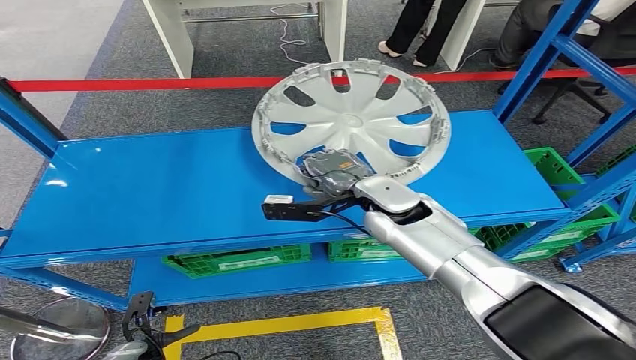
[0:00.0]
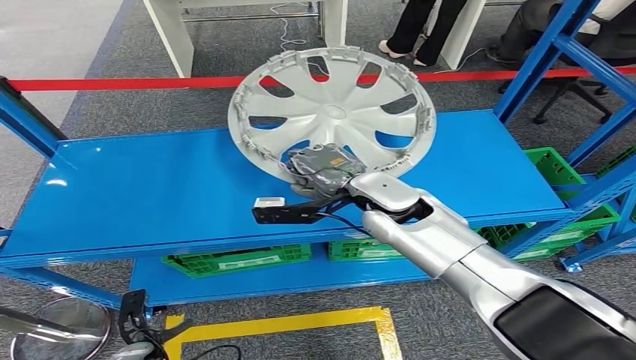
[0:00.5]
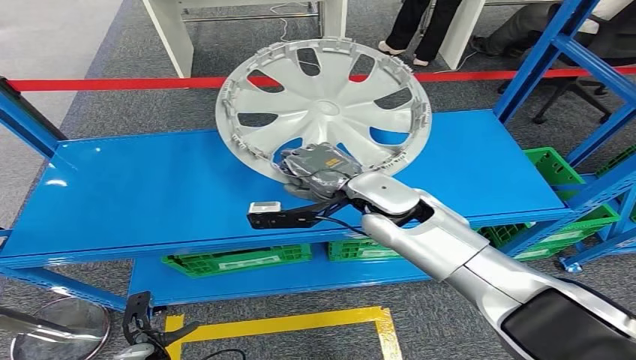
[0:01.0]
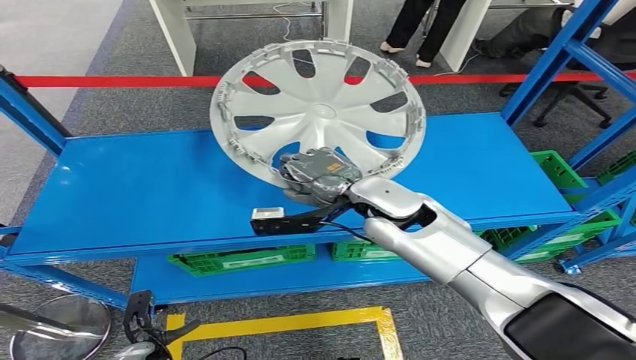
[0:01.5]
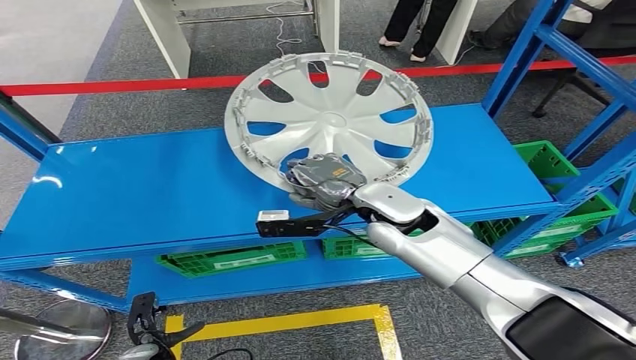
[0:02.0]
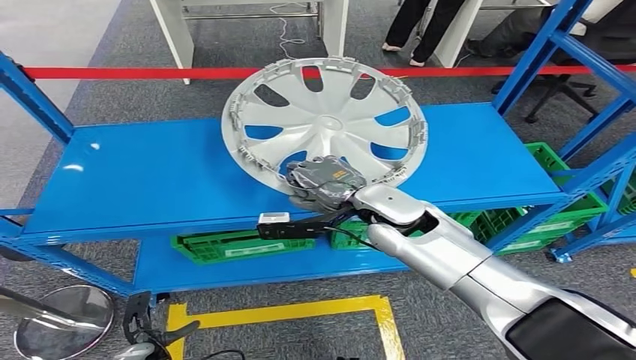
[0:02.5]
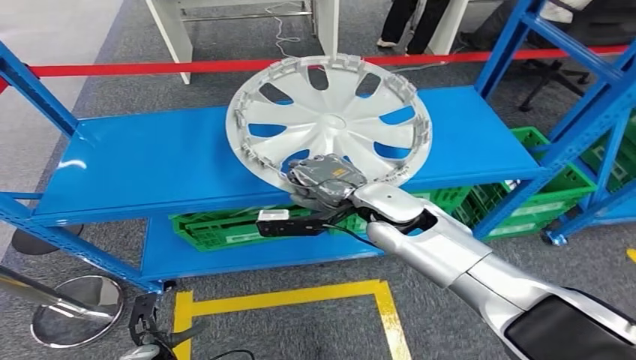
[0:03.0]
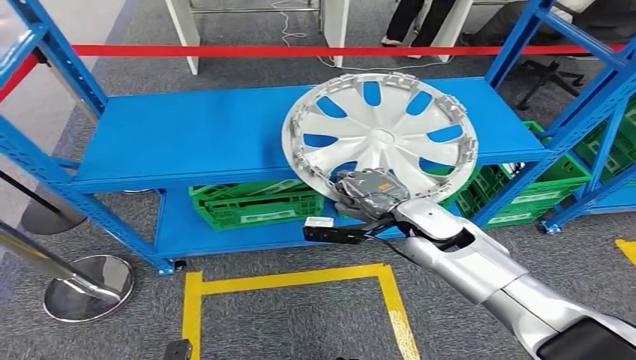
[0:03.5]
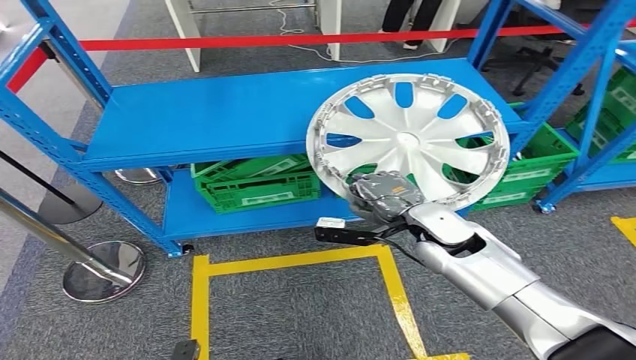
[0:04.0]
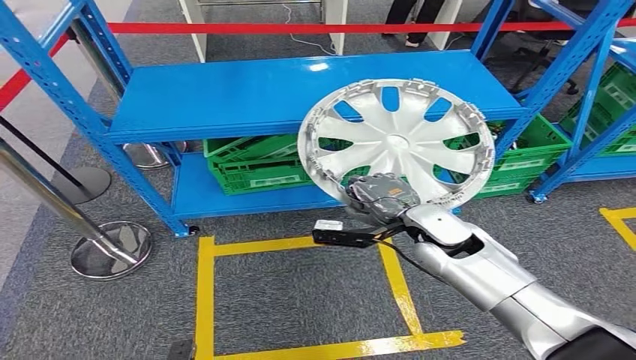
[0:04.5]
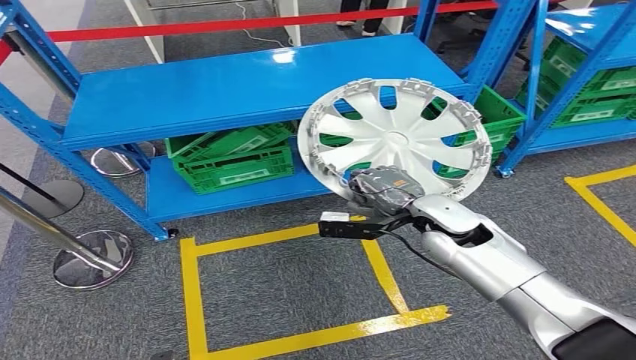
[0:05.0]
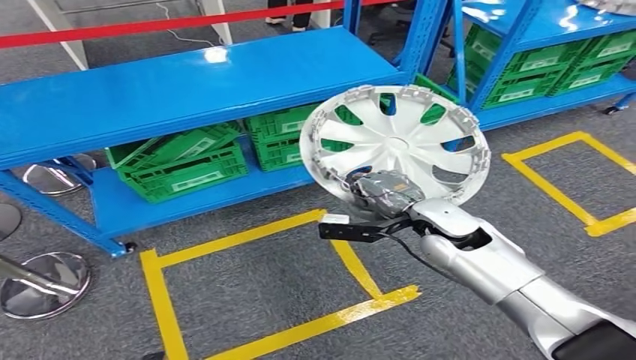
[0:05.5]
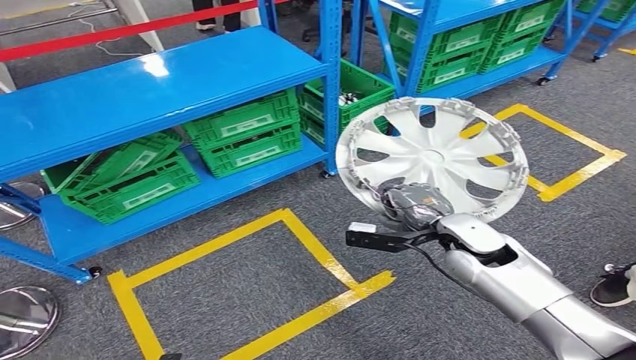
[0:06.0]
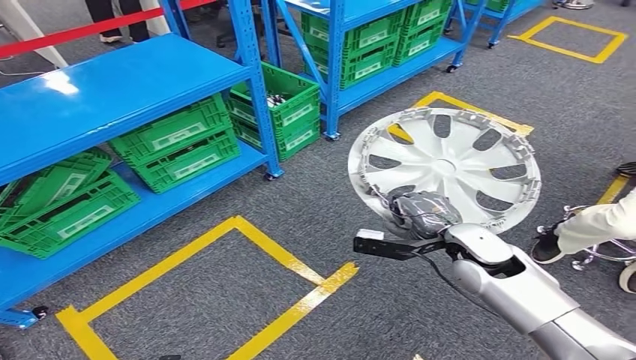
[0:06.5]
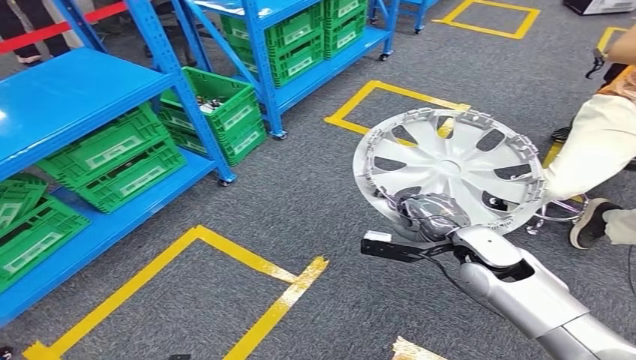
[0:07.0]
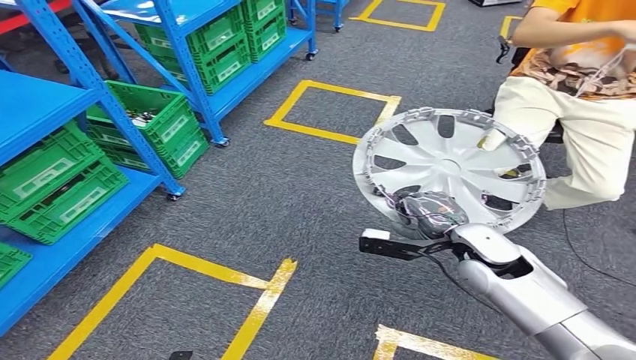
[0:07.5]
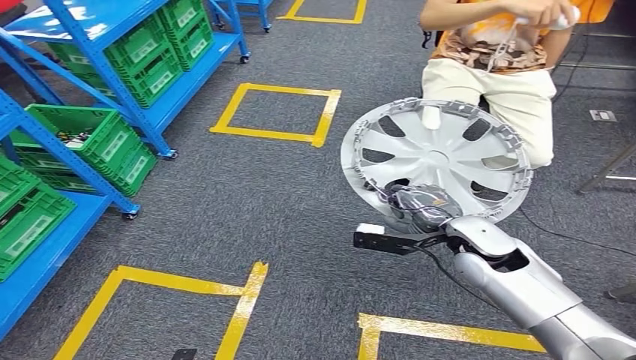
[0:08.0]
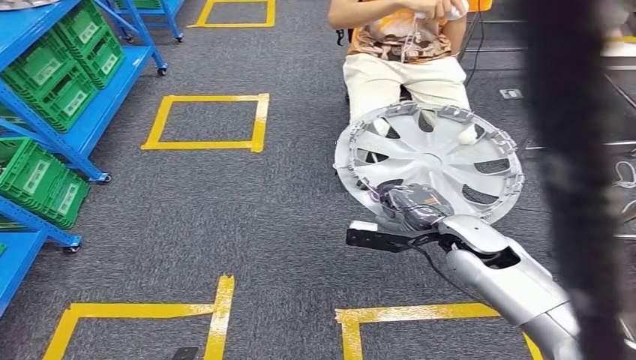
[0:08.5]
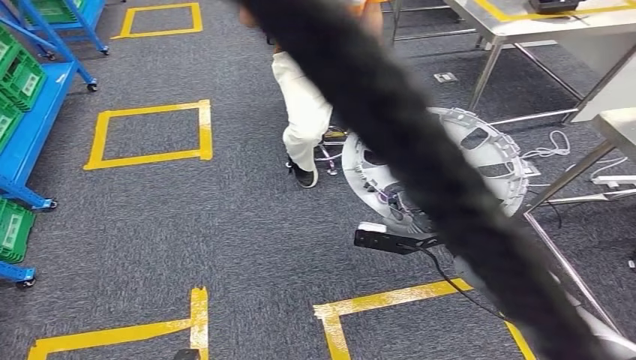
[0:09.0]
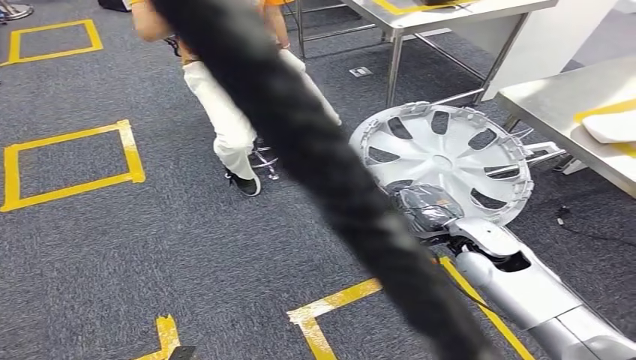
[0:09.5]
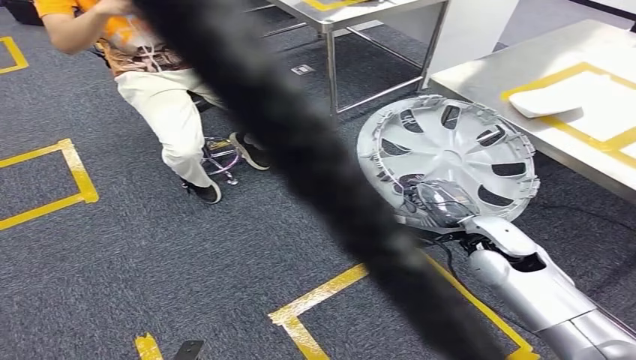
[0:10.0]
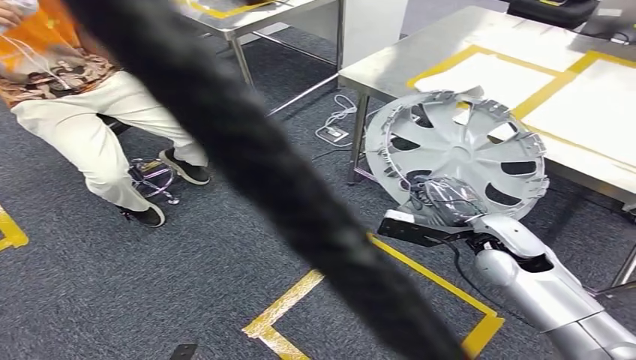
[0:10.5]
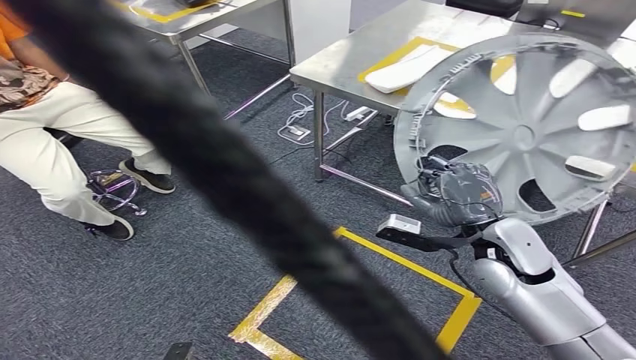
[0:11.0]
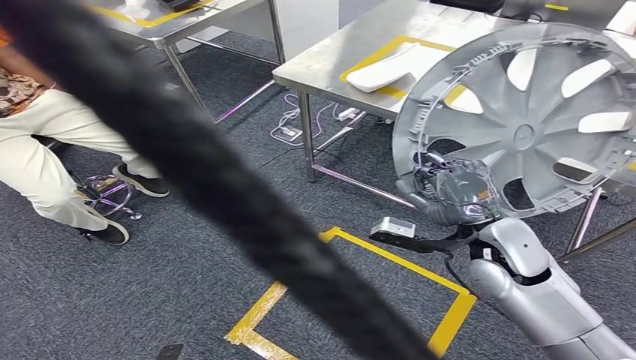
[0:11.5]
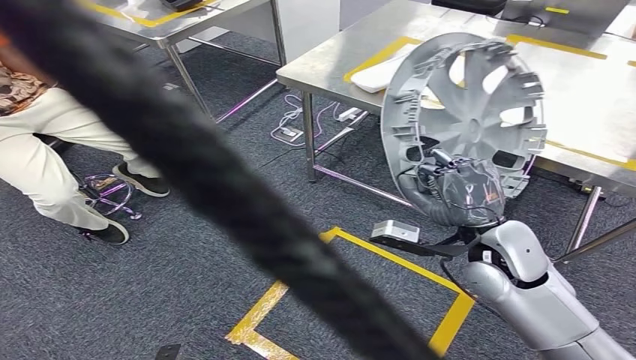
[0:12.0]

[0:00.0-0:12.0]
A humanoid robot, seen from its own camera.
Step, 0:00.0 to 0:10.5: Move the small parts to the workbench.

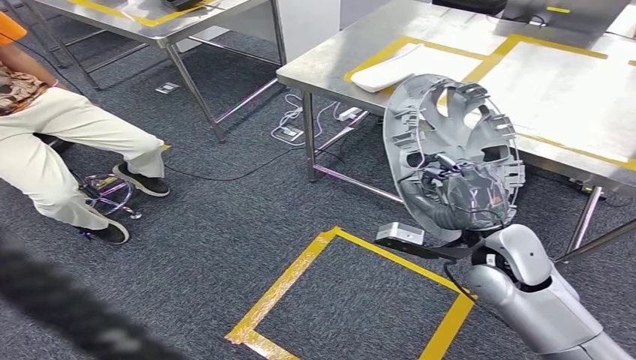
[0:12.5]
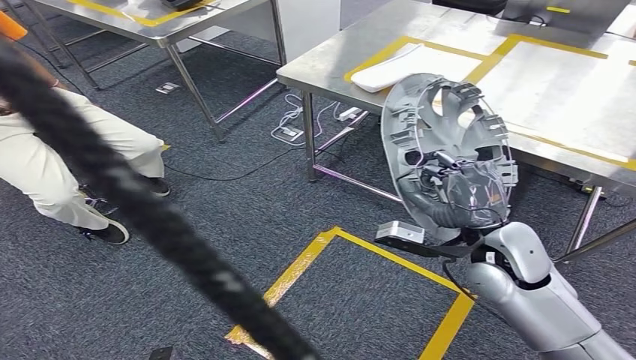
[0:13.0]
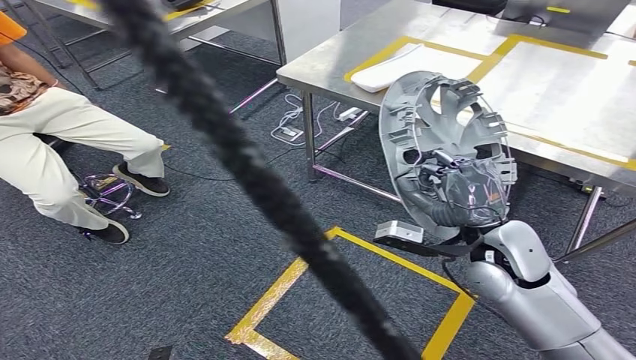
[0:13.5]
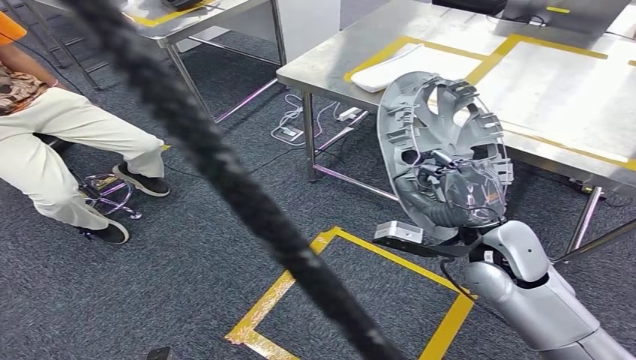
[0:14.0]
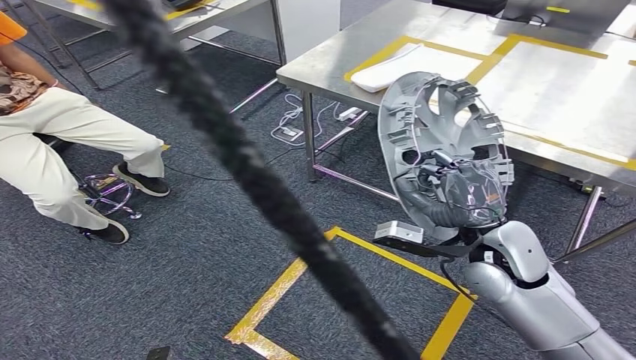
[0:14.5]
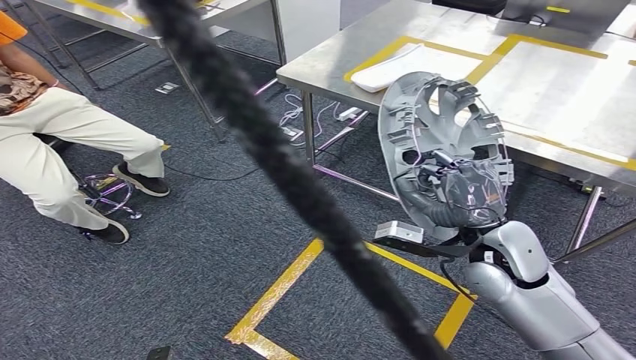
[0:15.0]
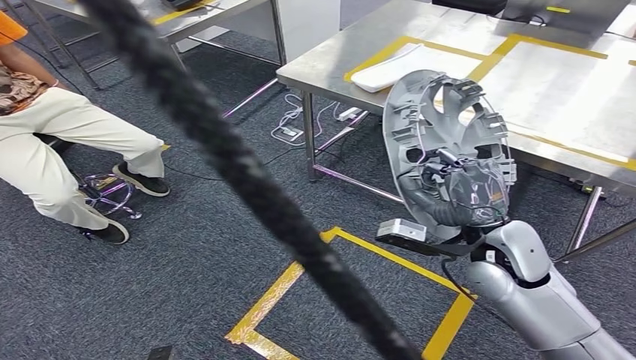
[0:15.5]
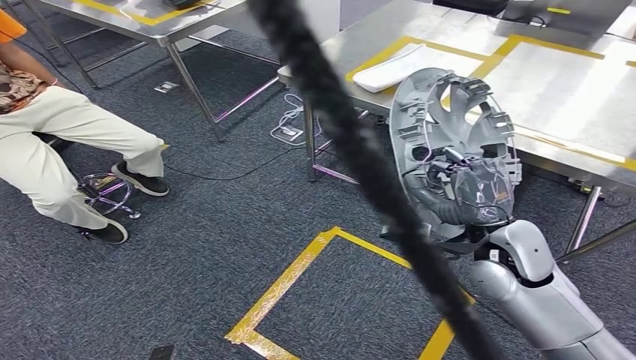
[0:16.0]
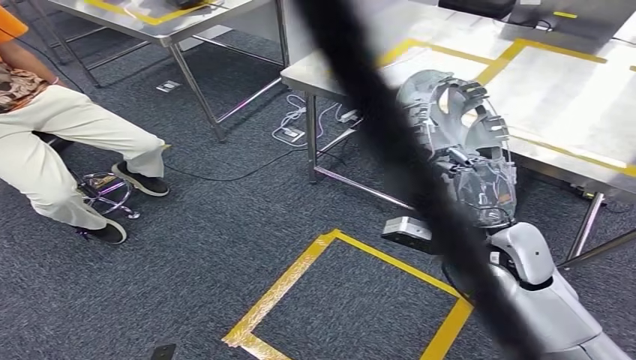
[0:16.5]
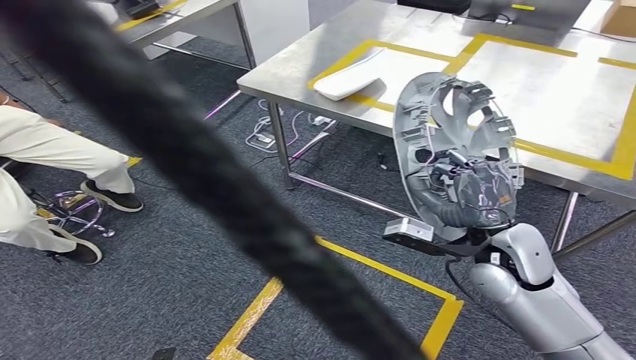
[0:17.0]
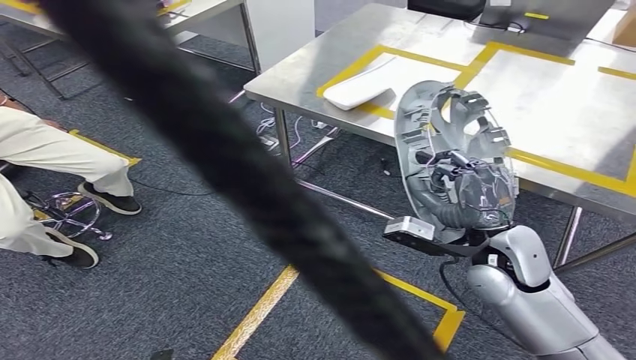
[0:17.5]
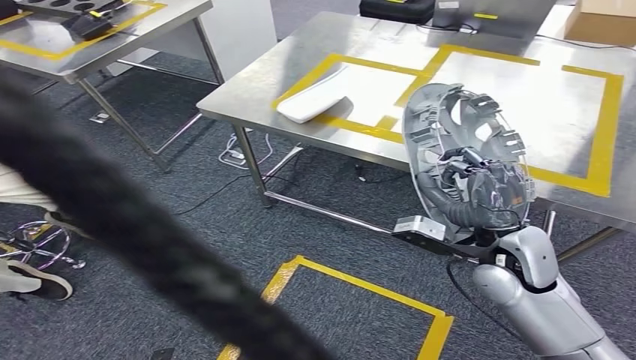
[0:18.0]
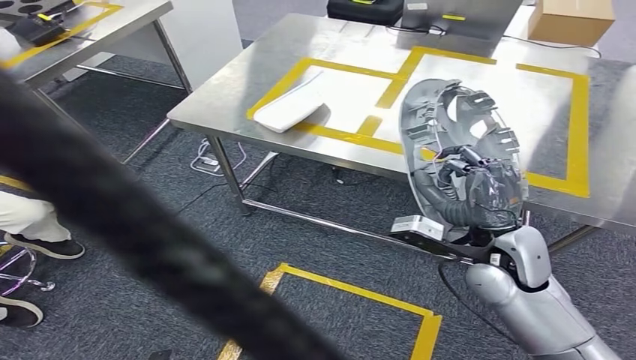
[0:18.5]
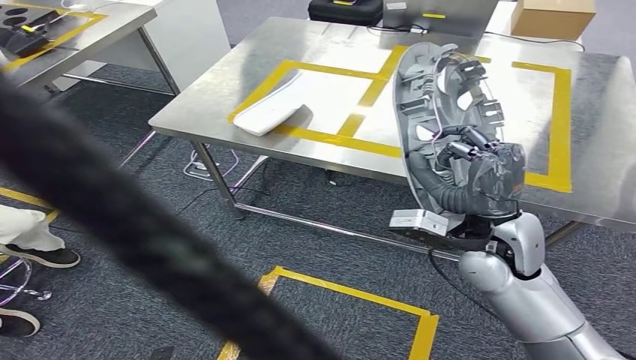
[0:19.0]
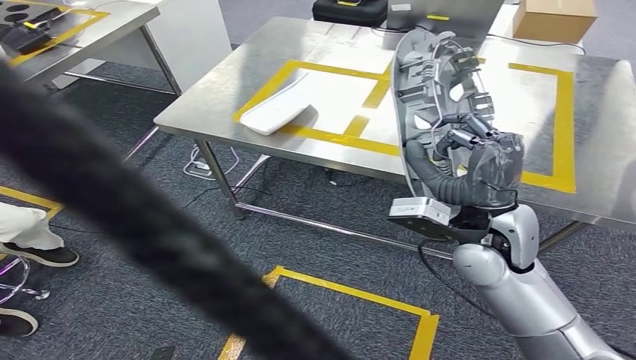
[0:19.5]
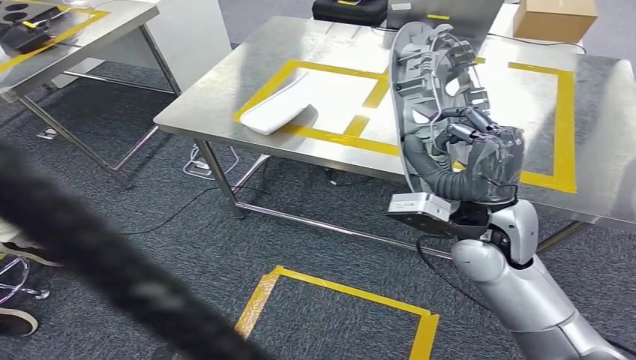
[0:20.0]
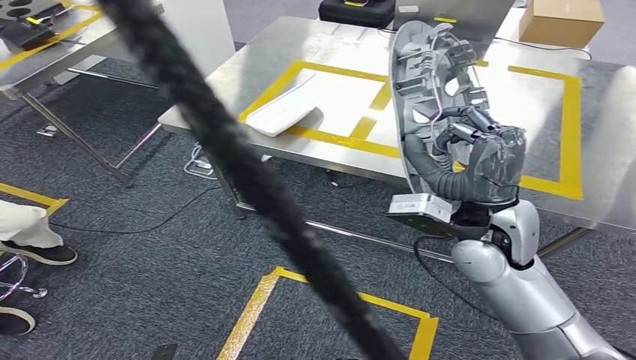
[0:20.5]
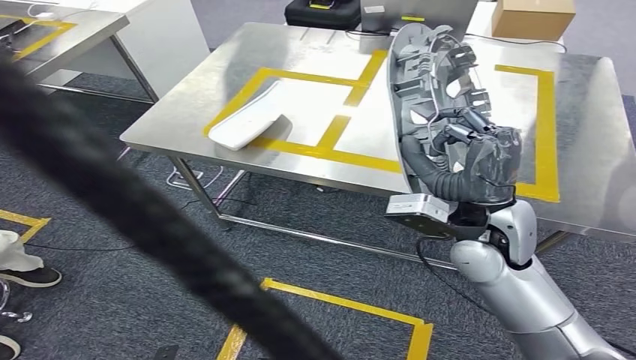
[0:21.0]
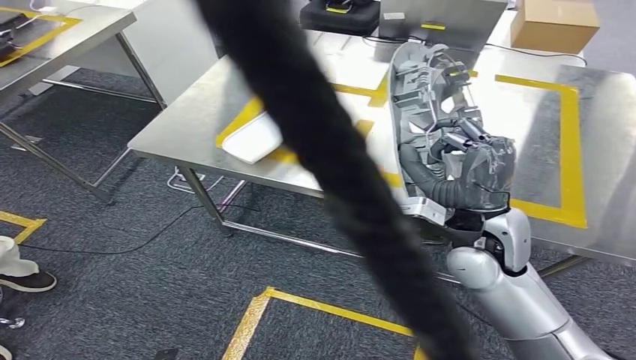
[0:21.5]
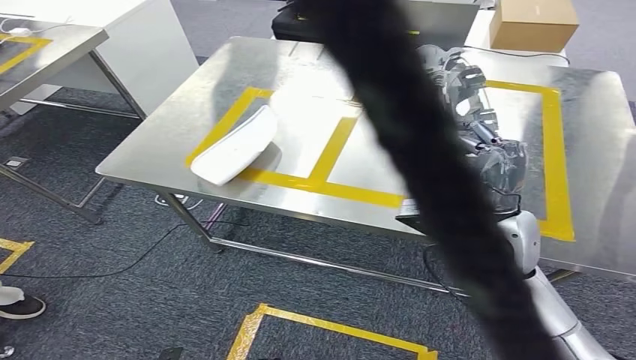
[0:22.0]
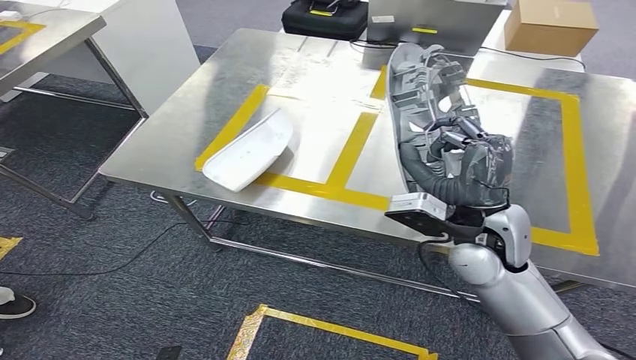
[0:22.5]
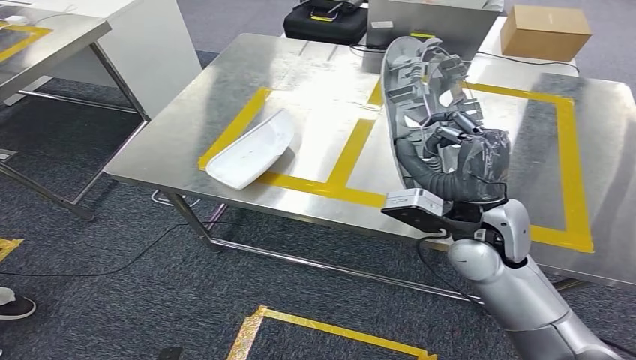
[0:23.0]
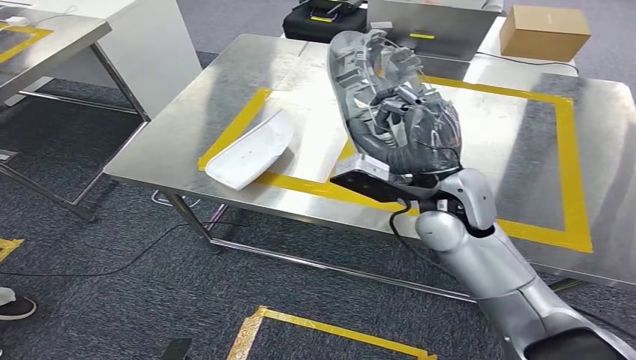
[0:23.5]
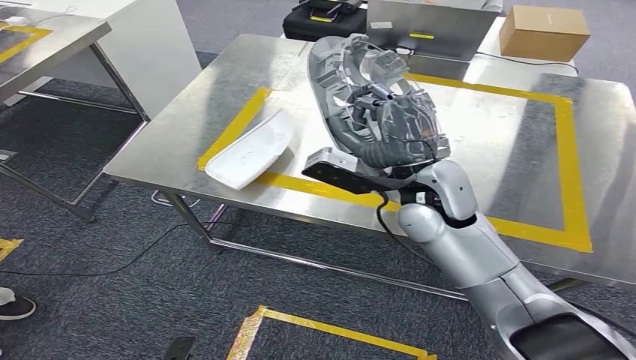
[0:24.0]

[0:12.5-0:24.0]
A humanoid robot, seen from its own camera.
0:12.5 to 0:14.5: Both hands stay put.
